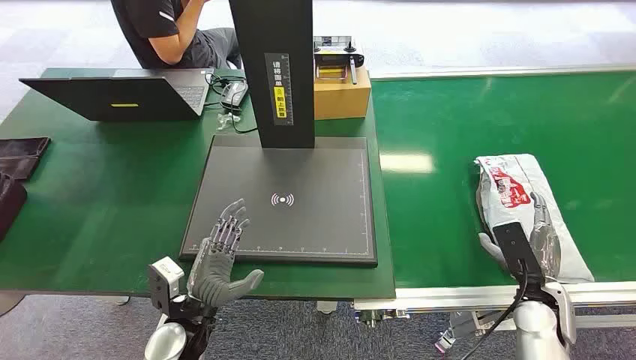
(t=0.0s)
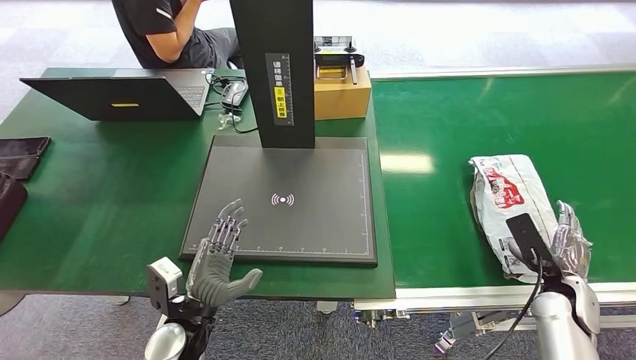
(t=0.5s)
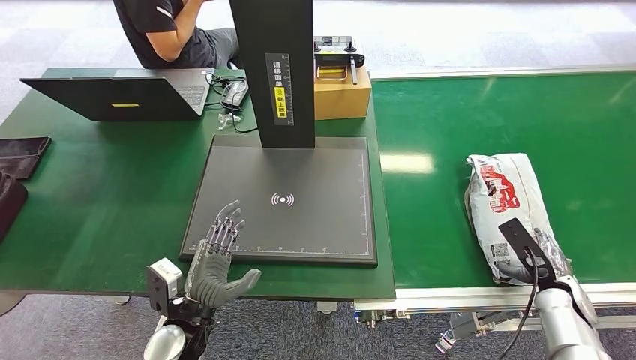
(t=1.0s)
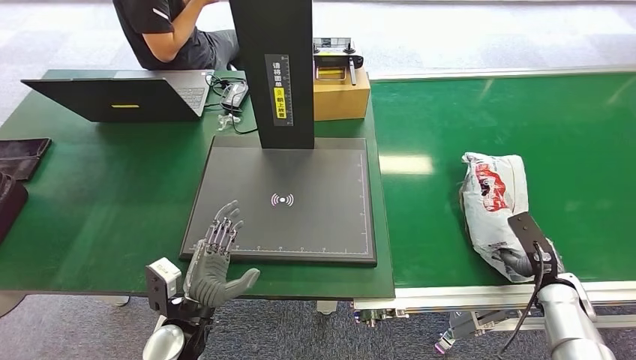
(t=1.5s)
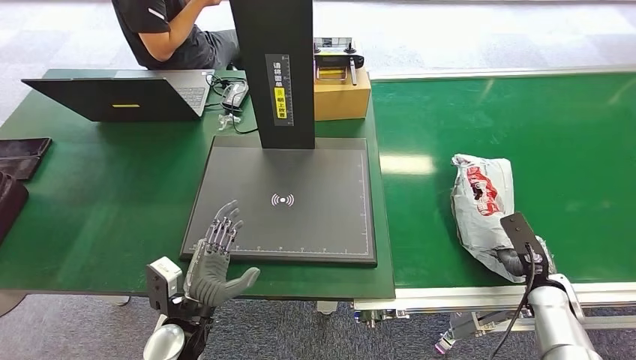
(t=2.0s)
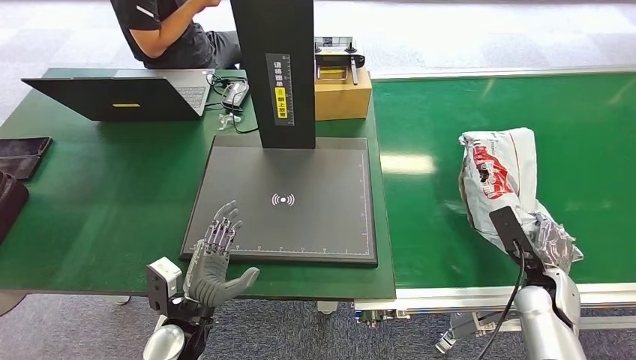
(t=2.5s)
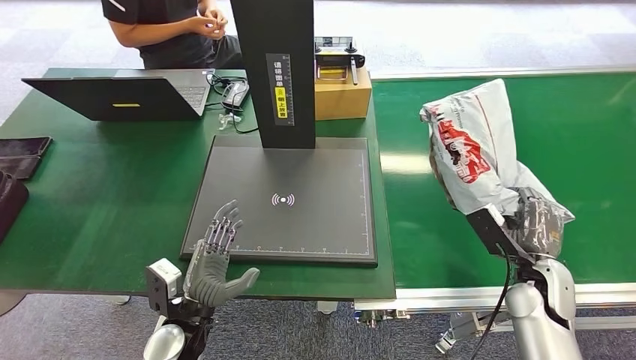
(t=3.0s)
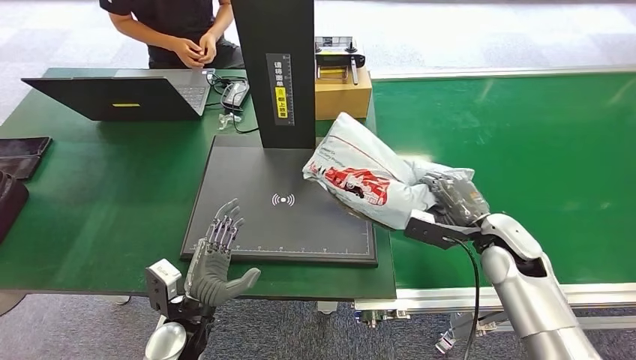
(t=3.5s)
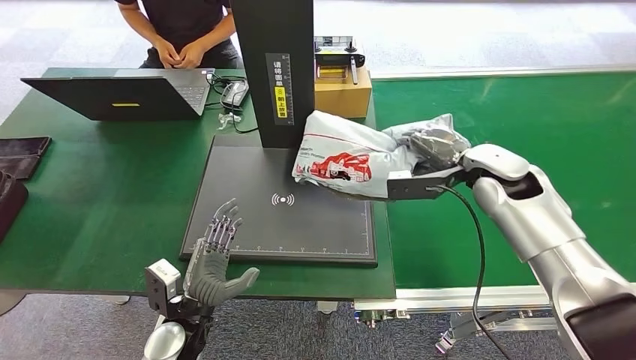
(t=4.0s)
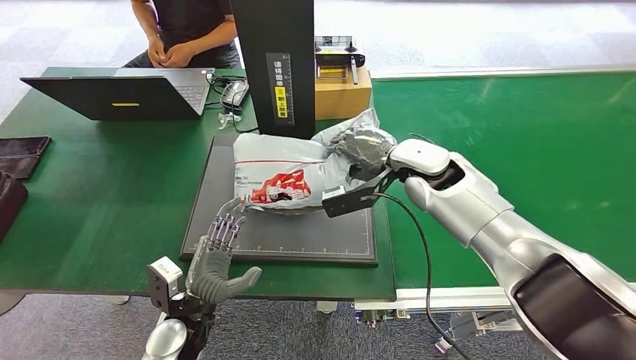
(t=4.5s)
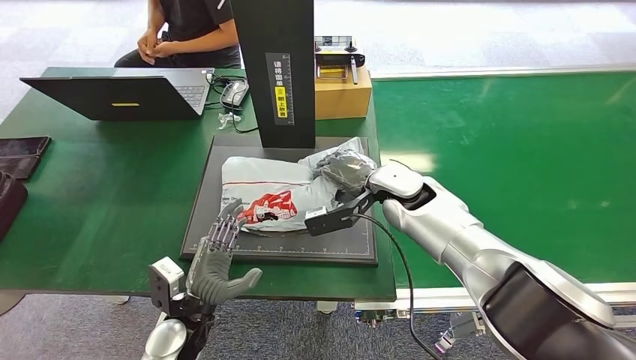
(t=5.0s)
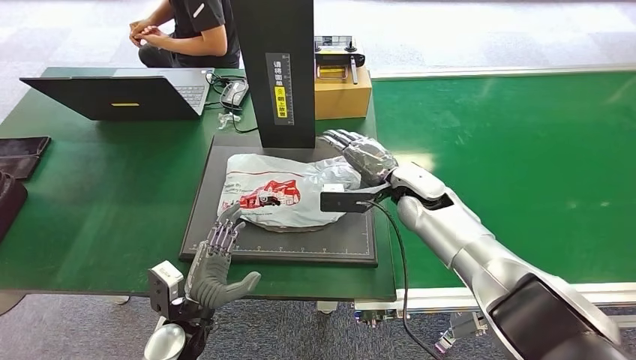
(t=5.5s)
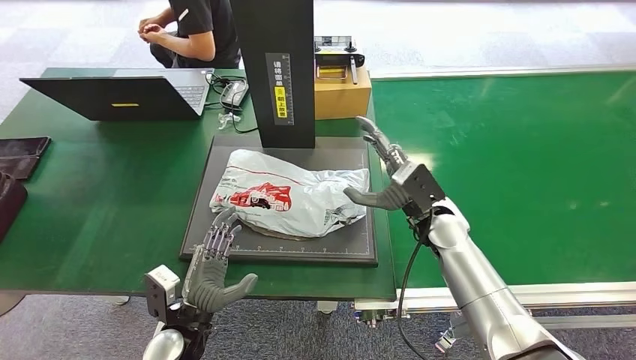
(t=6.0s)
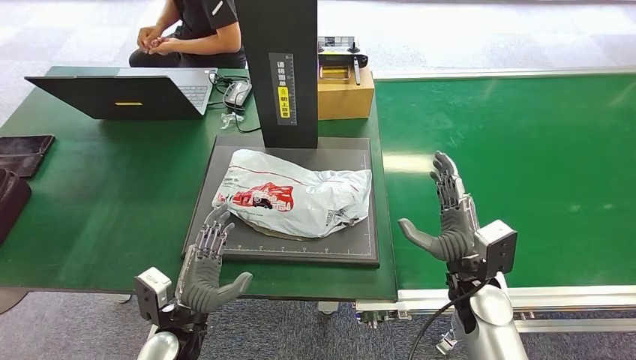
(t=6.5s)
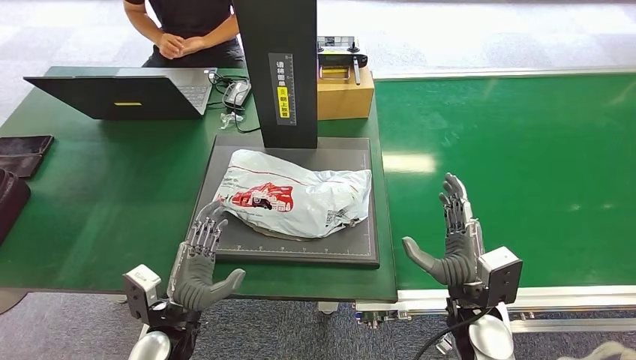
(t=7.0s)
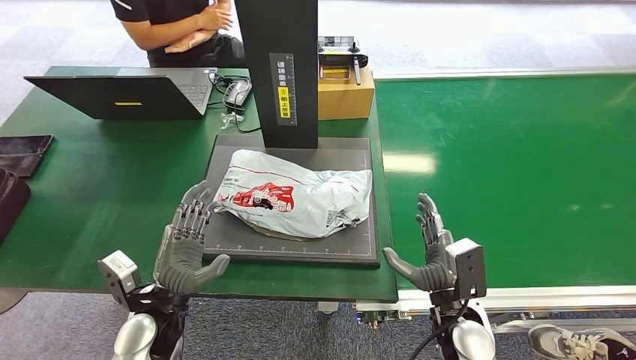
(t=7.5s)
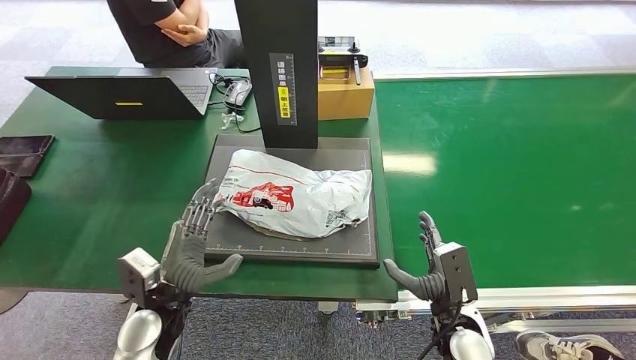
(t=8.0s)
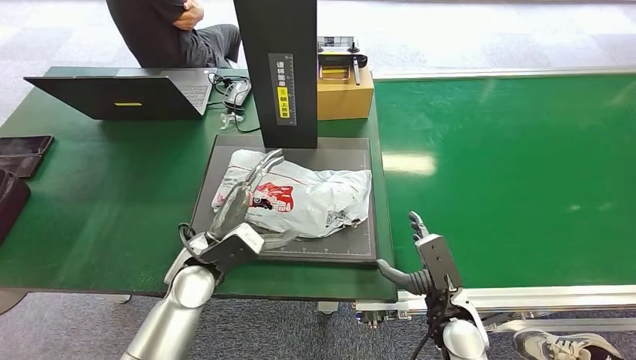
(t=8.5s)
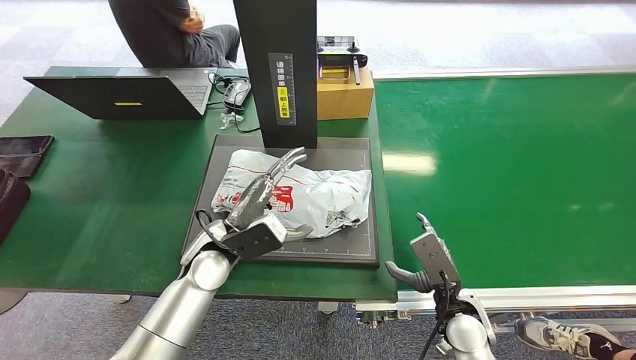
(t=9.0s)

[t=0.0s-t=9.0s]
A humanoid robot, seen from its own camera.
Step, t=0.0s to t=2.5s: Pick up the package from the conveyor belt.
Step, t=3.0s to t=6.0s: Place the package onto the inbound machine.
t=7.0s to t=9.0s: The left hand is displaced forward, upward and to the right by roughly 15 cm; the right hand heads downward, covering about 5 cm.

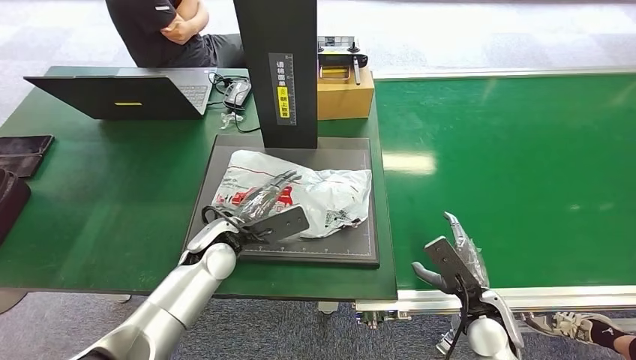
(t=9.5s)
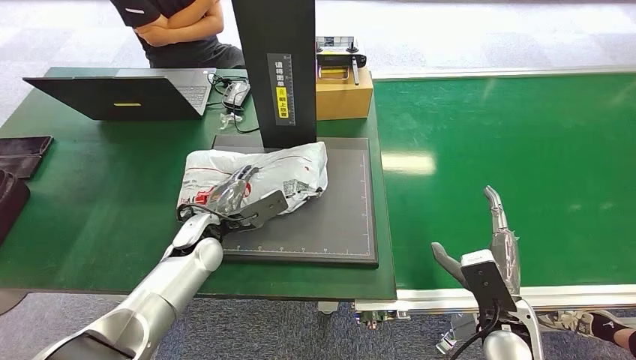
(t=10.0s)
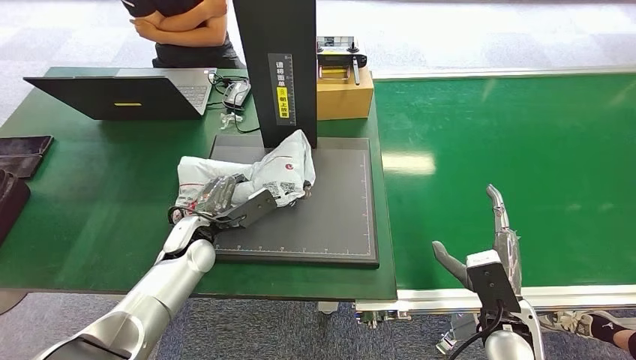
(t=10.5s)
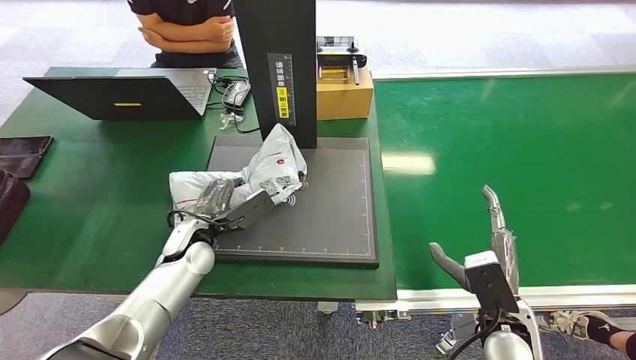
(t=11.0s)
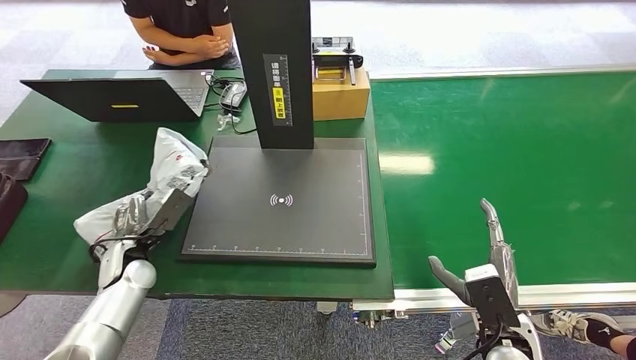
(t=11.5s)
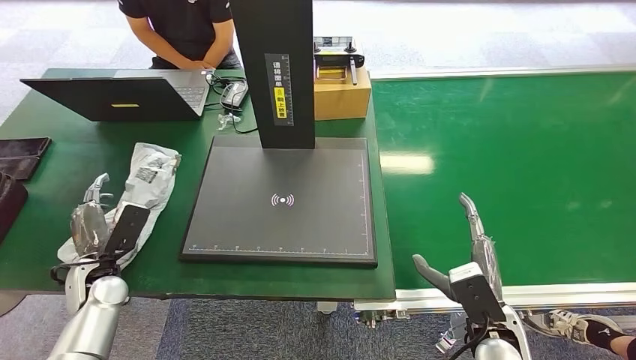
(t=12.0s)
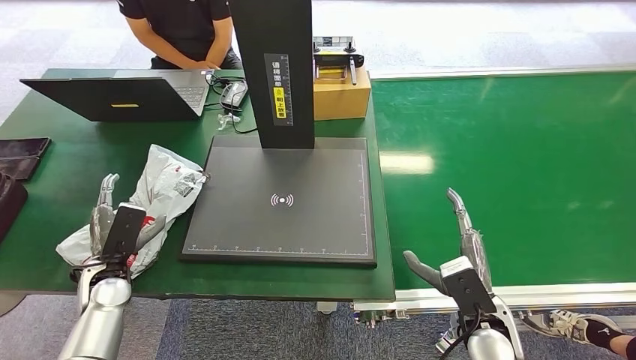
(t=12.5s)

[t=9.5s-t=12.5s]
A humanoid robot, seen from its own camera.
Step, t=11.0s to t=12.5s: Place the package into the parcel locker.
t=9.5s to t=11.0s: The right hand changes place by approximately 5 cm; the left hand goes some 5 cm to the left.
